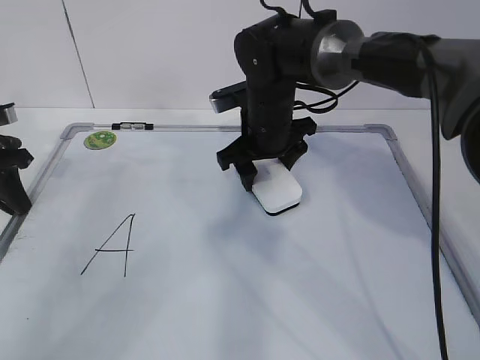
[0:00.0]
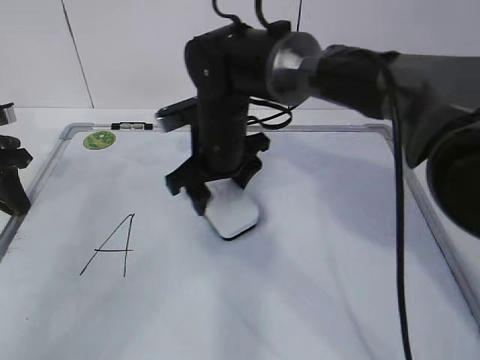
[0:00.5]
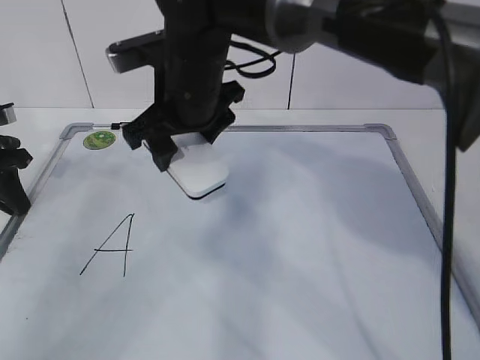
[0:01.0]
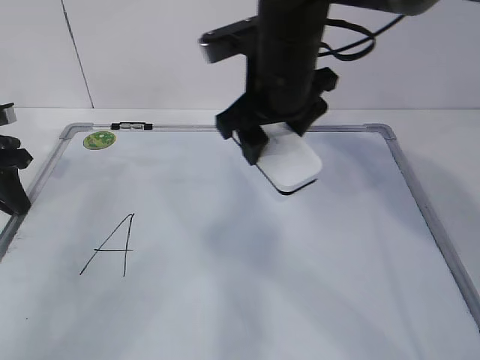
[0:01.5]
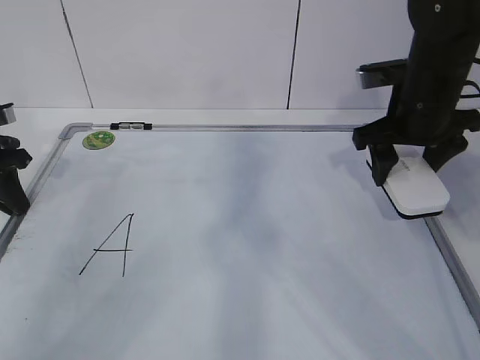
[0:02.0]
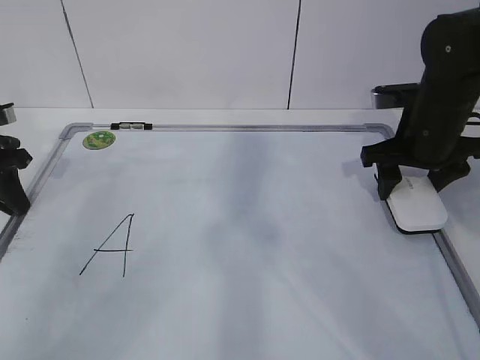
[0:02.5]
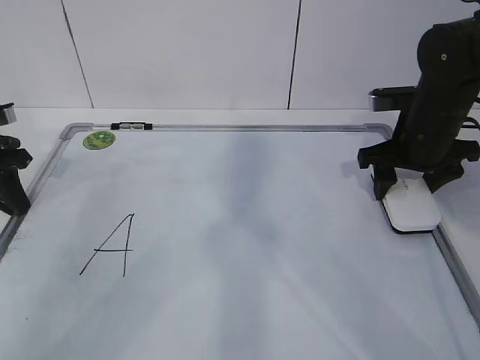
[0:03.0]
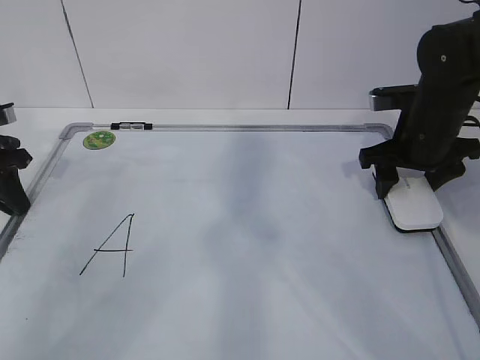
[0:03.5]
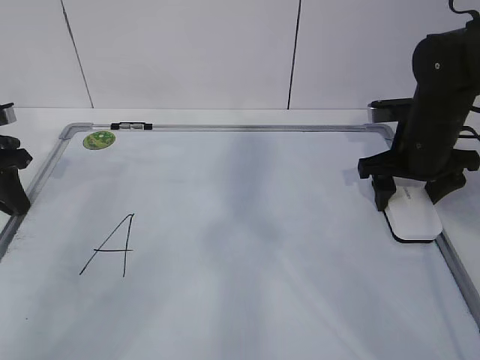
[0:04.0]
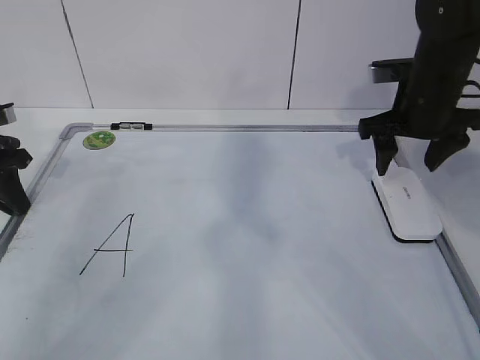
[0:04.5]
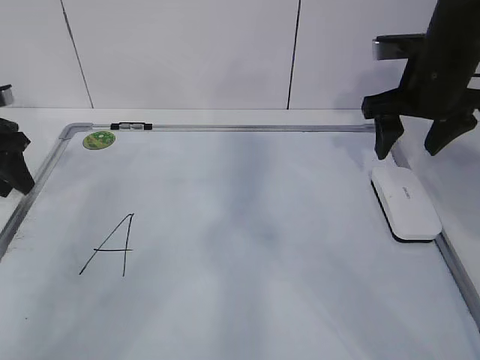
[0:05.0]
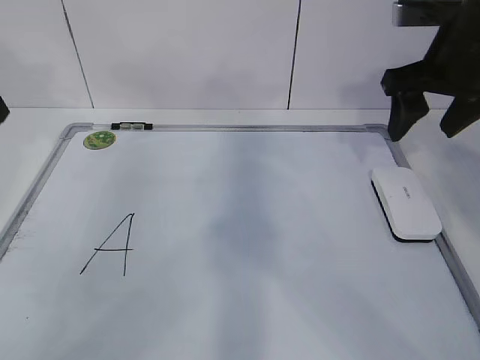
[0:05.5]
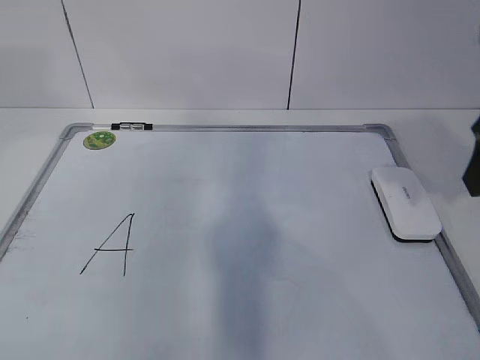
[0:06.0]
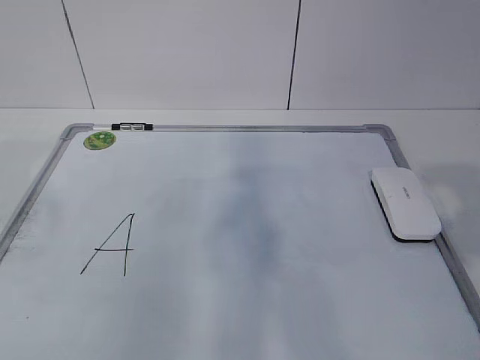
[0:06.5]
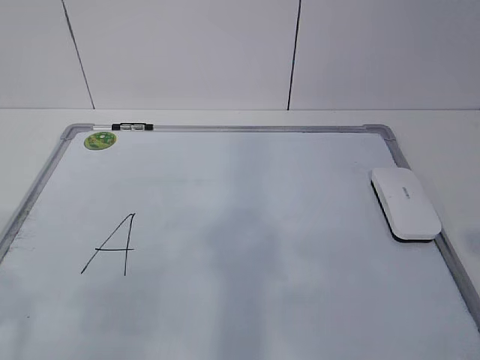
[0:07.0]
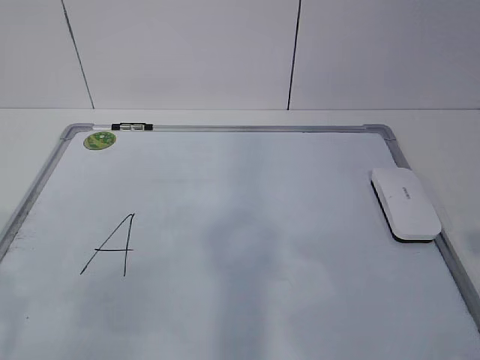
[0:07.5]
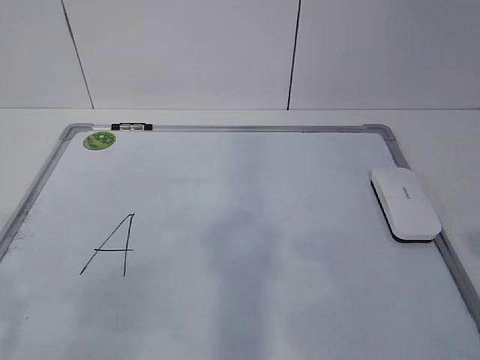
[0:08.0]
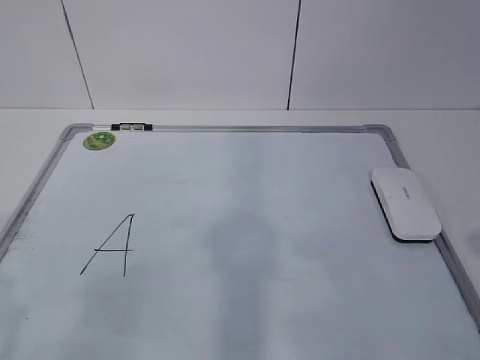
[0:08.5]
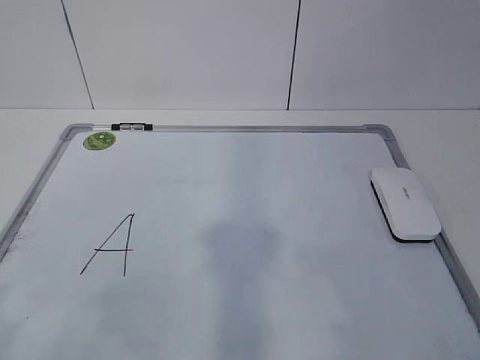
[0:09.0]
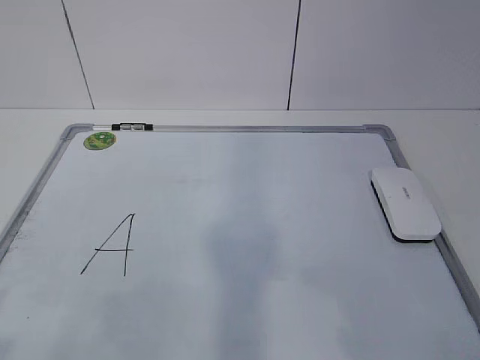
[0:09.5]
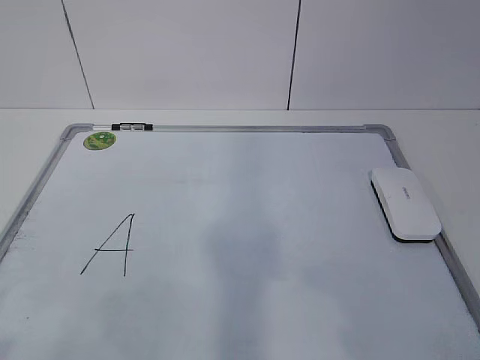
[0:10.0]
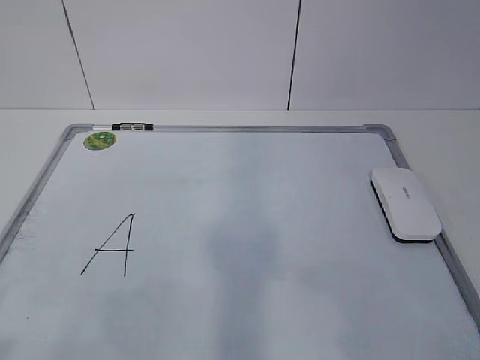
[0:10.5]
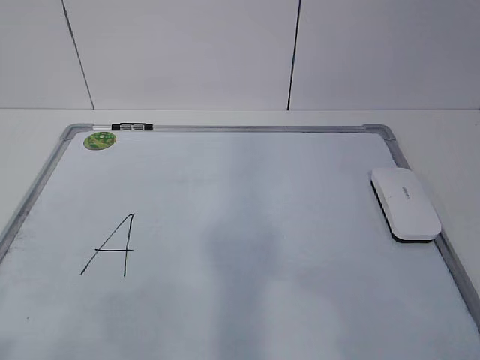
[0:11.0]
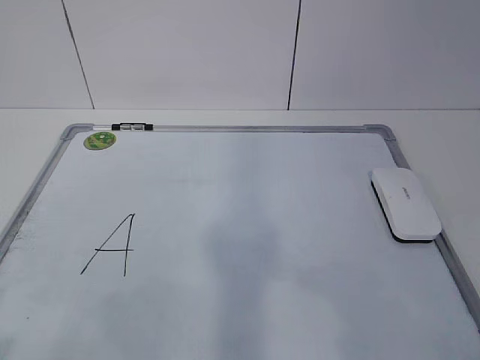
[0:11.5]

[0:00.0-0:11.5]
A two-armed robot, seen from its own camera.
Task of the whole recording: pick up the eraser on the blackboard and erase the letter "a".
0:00.0 to 0:02.0: The right gripper shifts some 15 cm to the right.
0:02.0 to 0:04.0: The right gripper travels downward by approximately 5 cm, and opens up.
0:04.0 to 0:06.0: Both grippers move upward and backward, some 25 cm. The left gripper opens its fingers.
0:06.0 to 0:07.5: The right gripper travels backward by some 20 cm.
0:09.5 to 0:11.5: Both grippers stay about where they are.
